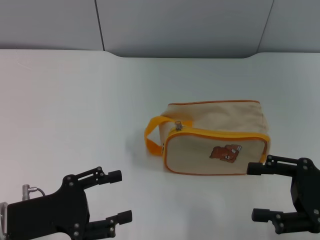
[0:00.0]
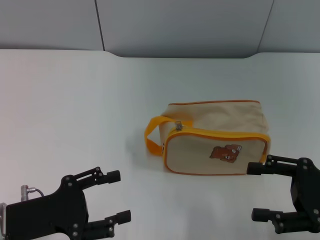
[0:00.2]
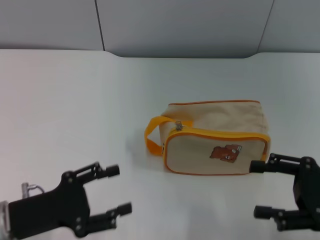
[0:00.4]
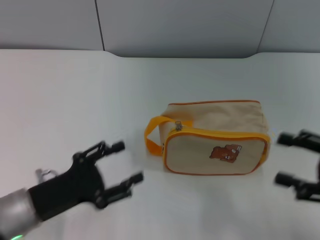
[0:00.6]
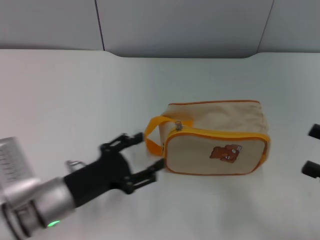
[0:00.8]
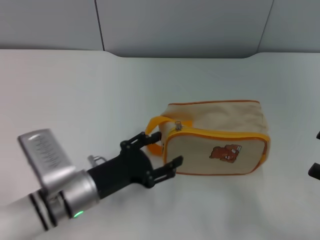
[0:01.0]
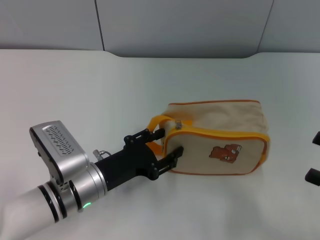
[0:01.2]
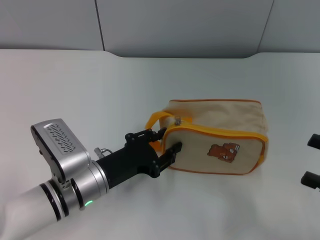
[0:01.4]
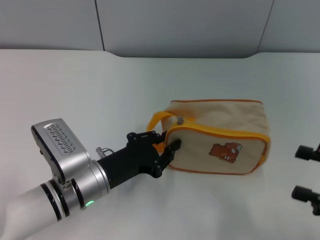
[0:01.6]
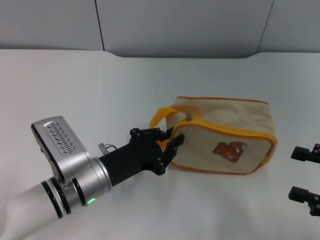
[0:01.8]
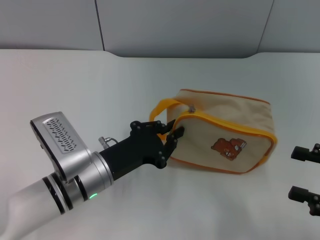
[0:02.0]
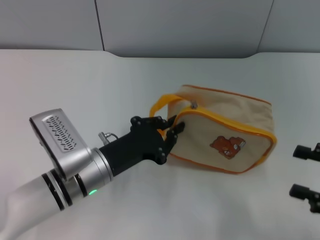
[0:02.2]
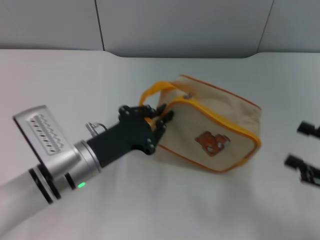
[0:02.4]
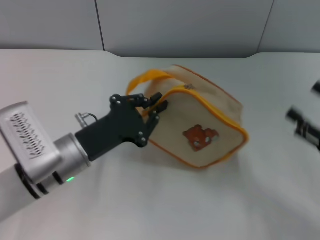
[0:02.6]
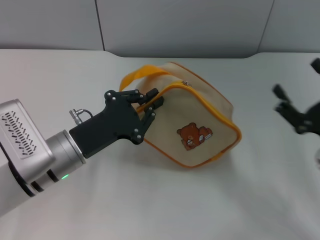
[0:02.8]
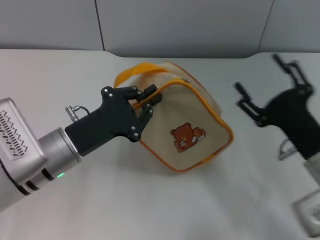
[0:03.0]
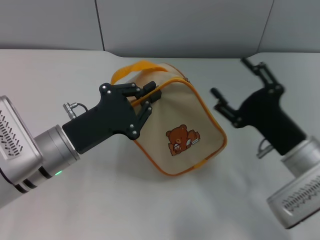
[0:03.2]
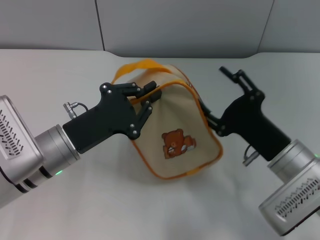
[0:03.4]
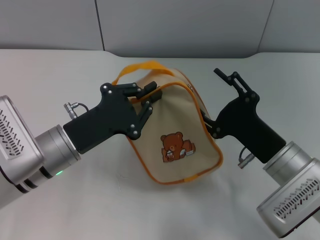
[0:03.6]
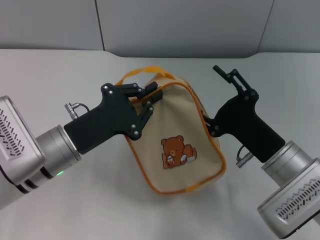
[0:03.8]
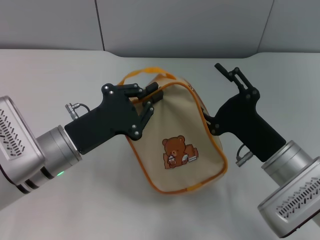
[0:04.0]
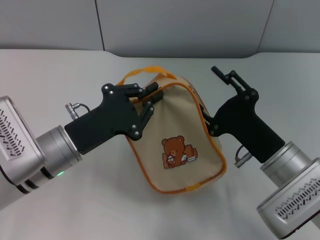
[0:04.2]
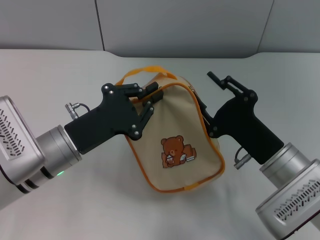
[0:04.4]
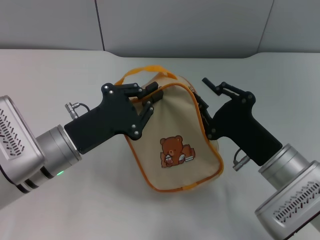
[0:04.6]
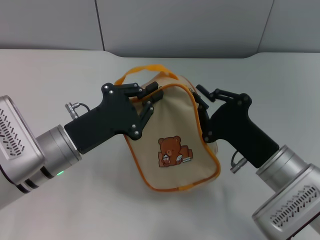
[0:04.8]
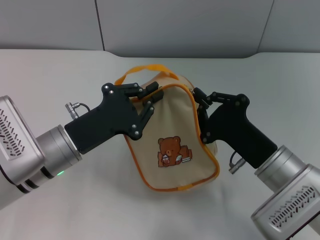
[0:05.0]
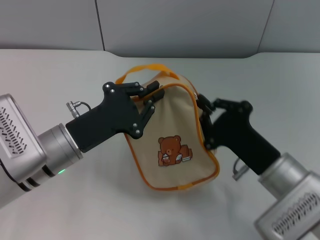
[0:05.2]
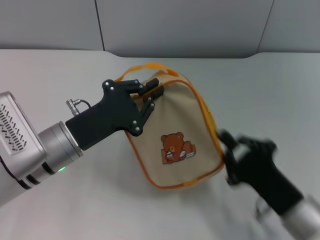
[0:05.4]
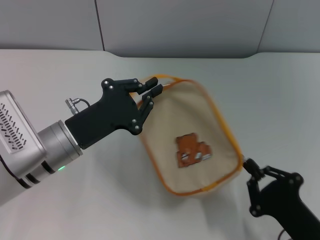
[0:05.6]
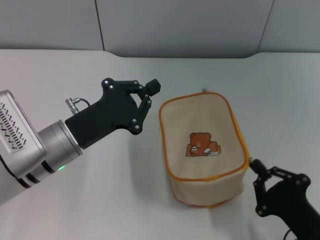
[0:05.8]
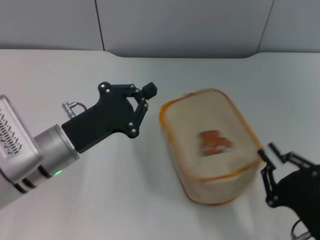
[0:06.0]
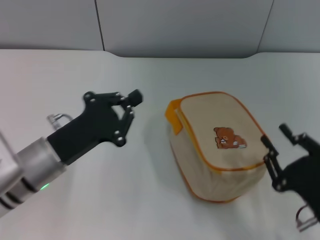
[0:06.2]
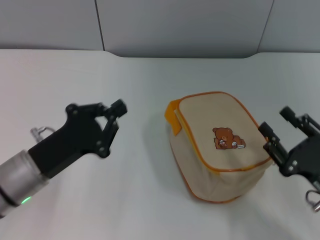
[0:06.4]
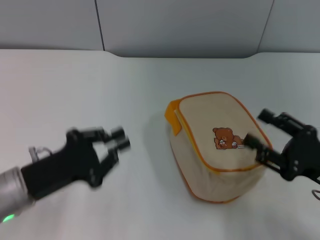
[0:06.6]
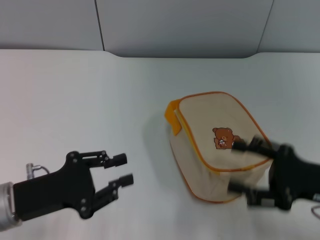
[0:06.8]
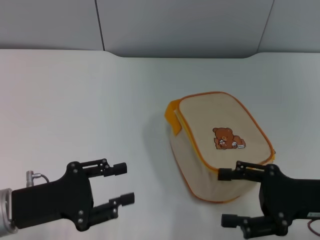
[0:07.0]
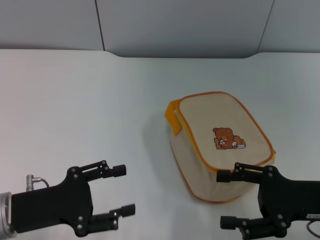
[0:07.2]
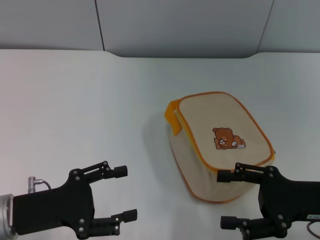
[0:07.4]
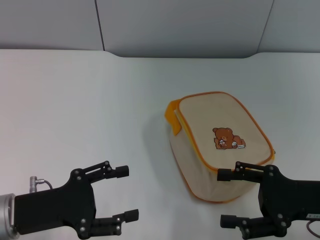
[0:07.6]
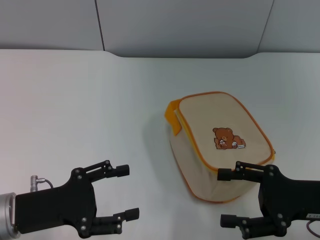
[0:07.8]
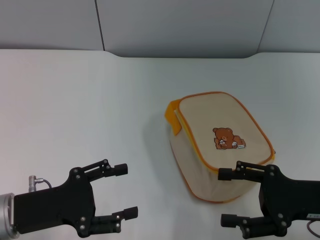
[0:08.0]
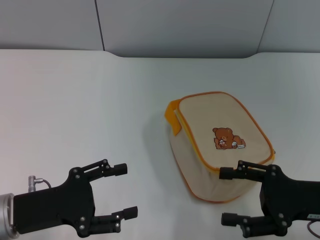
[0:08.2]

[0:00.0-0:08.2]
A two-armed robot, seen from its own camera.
Step, 0:00.0 to 0:02.8: Pick up the bag with left gripper.
Step, 0:03.2 to 0:06.0: Unzip the zipper of bag with right gripper.
0:00.0 to 0:01.6: The left gripper travels to the right and forward by some 15 cm. Meanwhile the right gripper changes place by some 5 cm.
0:01.6 to 0:03.2: The right gripper goes roughly 15 cm to the left and forward, while the left gripper travels upward by roughly 5 cm, and closes up.
0:03.2 to 0:05.0: The right gripper closes its fingers.
0:05.0 to 0:06.6: The right gripper moves to the right, some 10 cm, and opens its fingers, while the left gripper moves to the left, some 5 cm.
0:06.6 to 0:08.2: The right gripper opens, while the left gripper opens its fingers.
